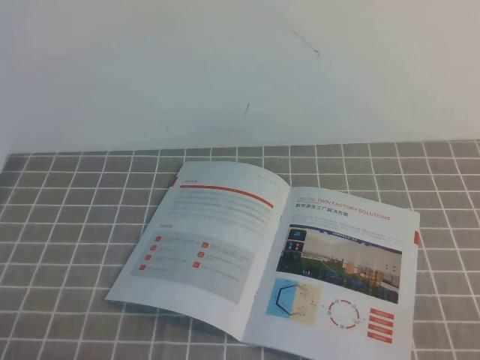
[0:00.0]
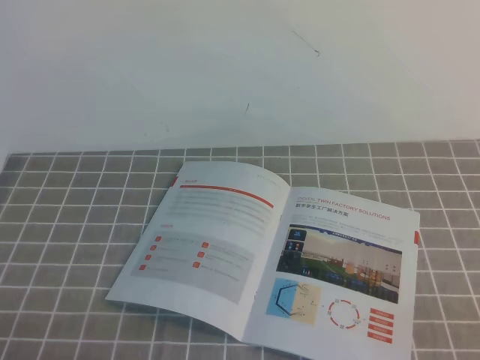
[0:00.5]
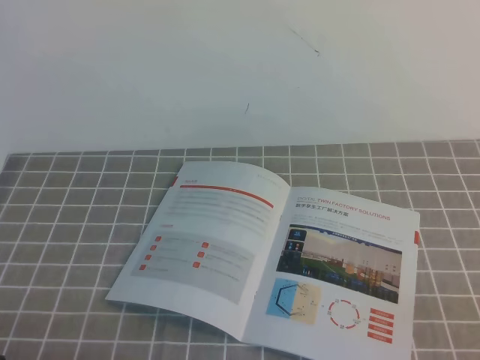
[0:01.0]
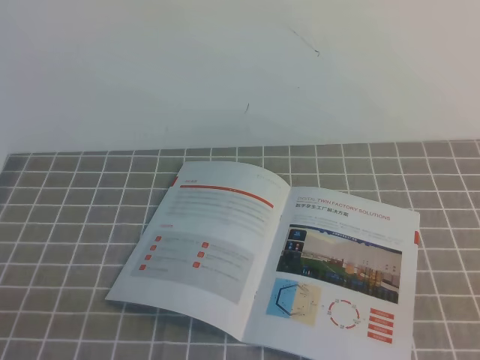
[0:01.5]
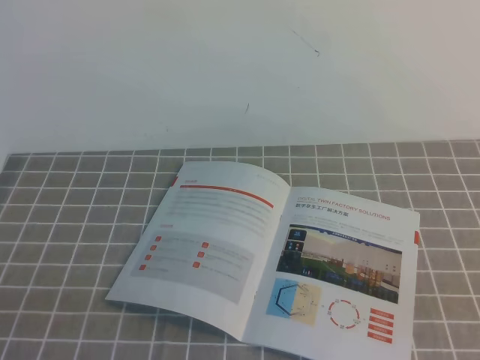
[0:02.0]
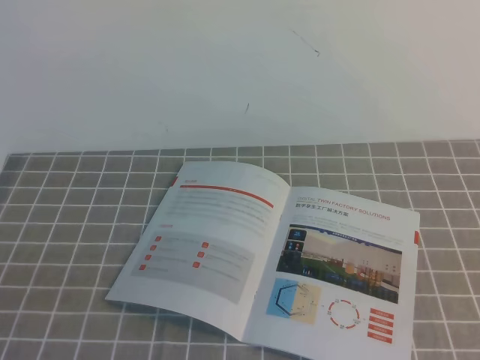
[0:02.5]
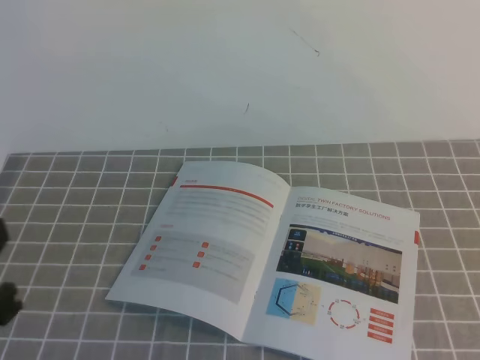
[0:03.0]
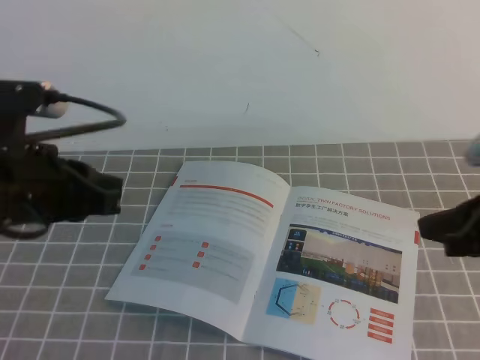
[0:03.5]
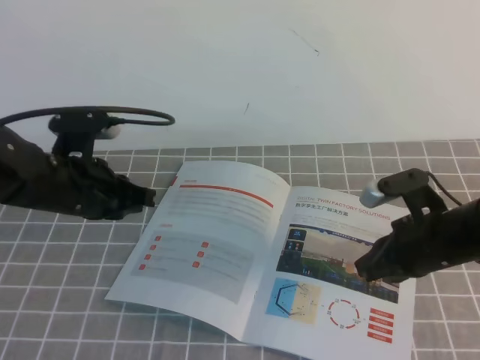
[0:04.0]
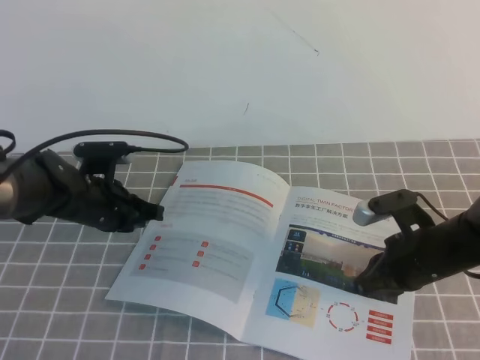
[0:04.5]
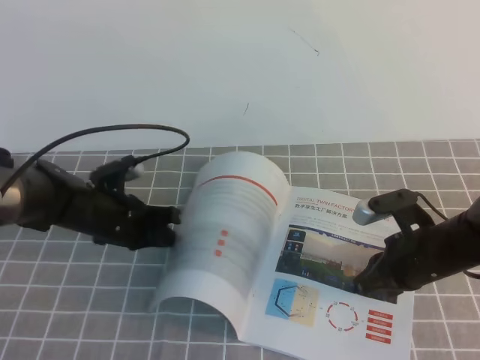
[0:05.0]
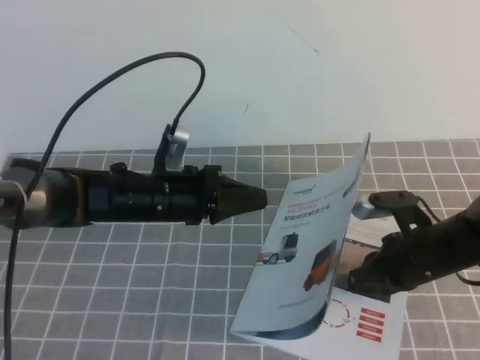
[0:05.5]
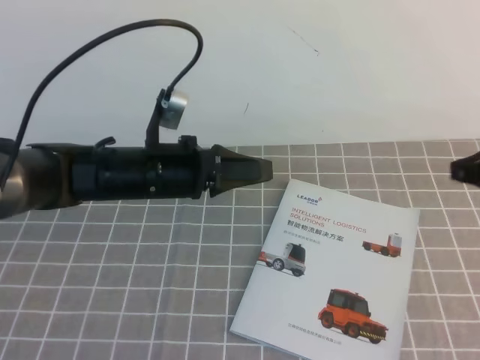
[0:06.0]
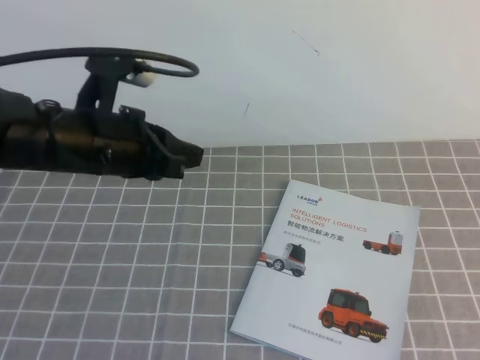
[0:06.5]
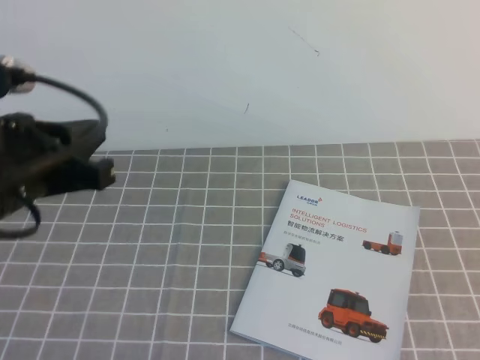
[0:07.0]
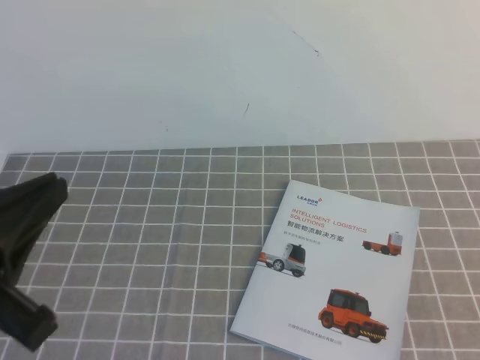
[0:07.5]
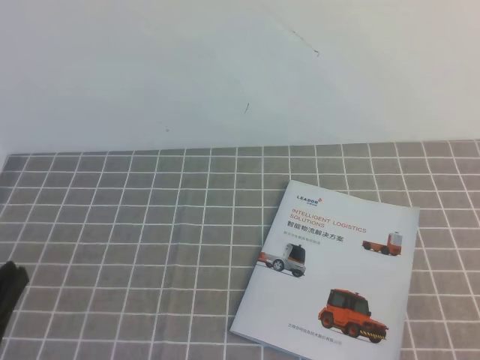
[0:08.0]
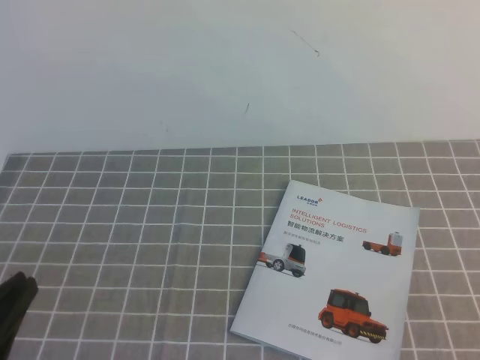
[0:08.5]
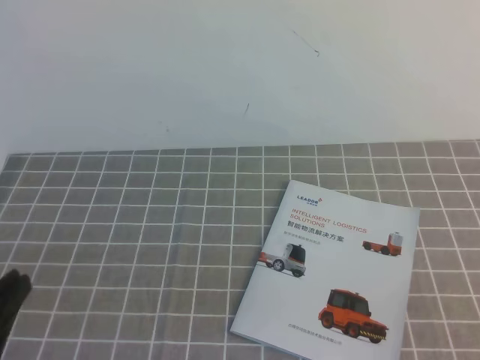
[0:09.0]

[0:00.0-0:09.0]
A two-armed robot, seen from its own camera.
Task of the whole recording: on the grey tablecloth, hold the book with one hand and close it with the other.
0:02.0 to 0:04.5: The right gripper goes about 30 cm forward, to the left and downward; the left gripper is displaced forward by about 35 cm.
0:04.5 to 0:07.0: The left gripper is displaced upward and backward by roughly 25 cm. Meanwhile the right gripper heads backward, upward and to the right, covering roughly 35 cm.
0:07.0 to 0:09.0: The right gripper moves downward, about 10 cm, while the left gripper shifts approximately 20 cm backward.

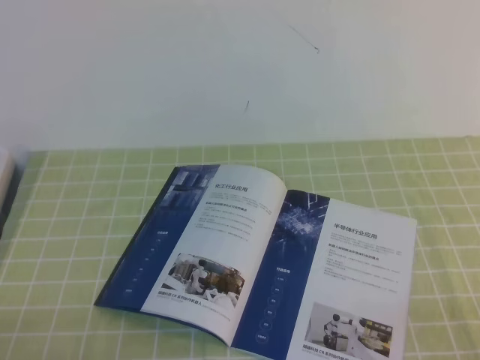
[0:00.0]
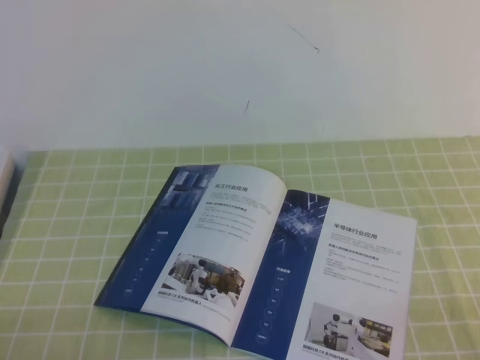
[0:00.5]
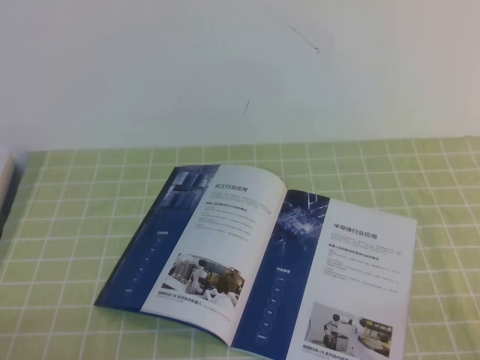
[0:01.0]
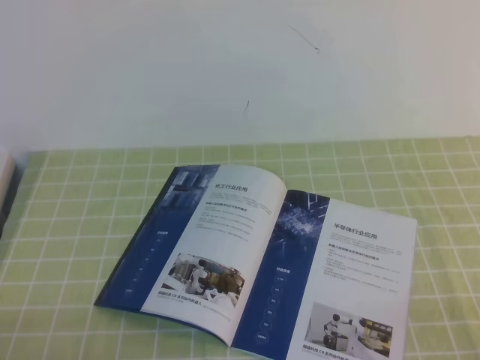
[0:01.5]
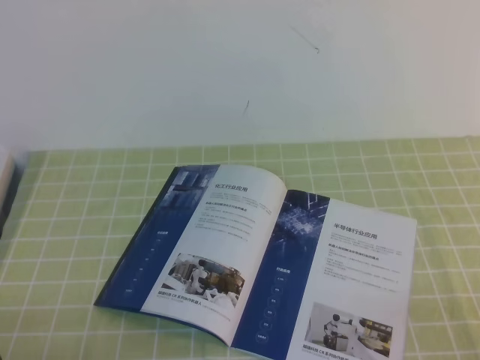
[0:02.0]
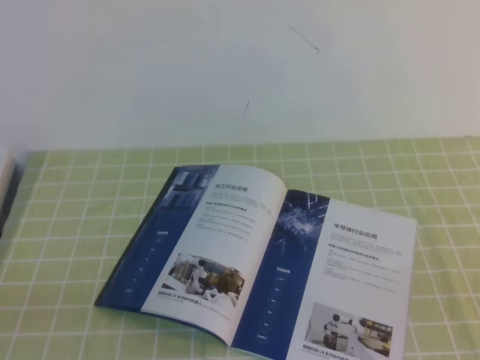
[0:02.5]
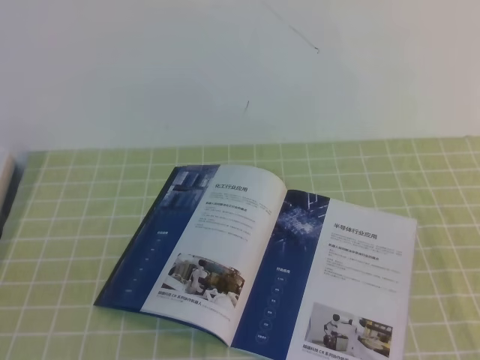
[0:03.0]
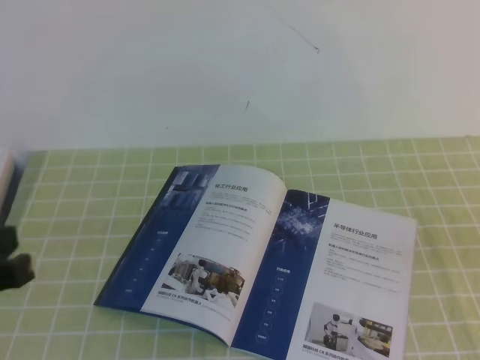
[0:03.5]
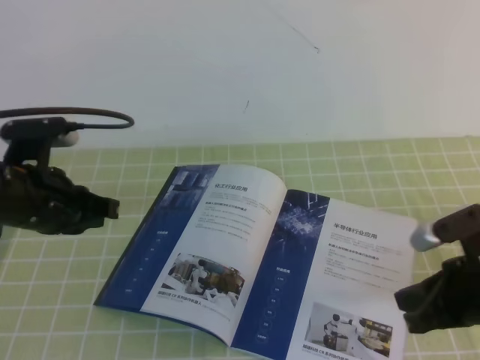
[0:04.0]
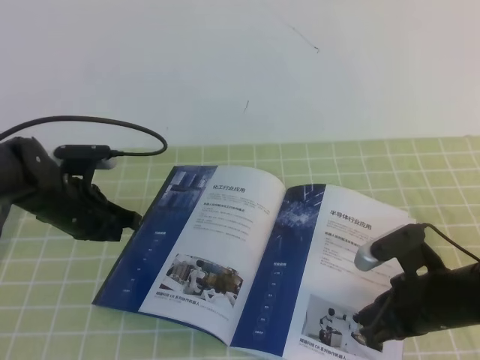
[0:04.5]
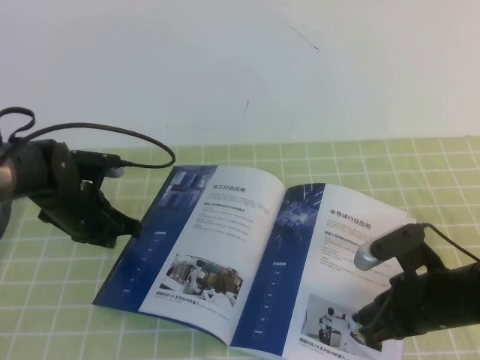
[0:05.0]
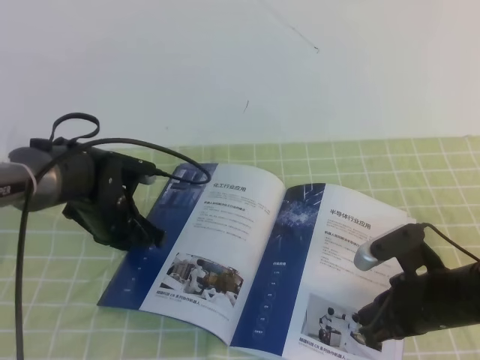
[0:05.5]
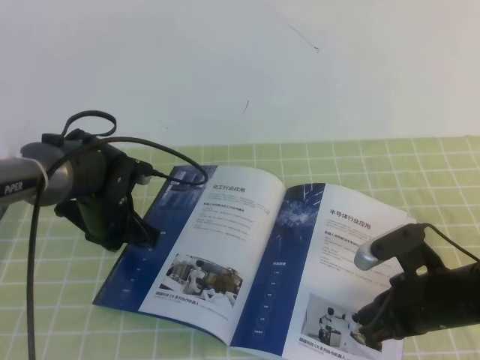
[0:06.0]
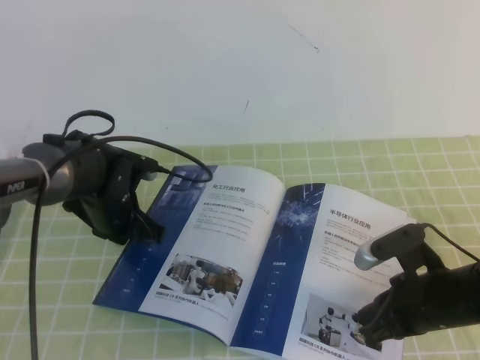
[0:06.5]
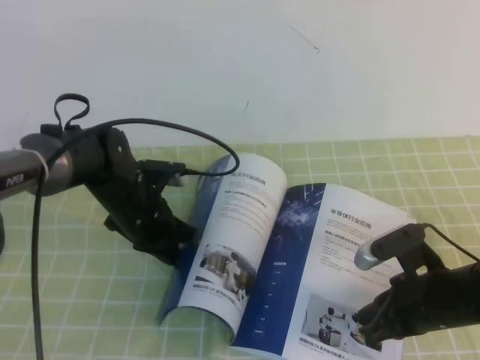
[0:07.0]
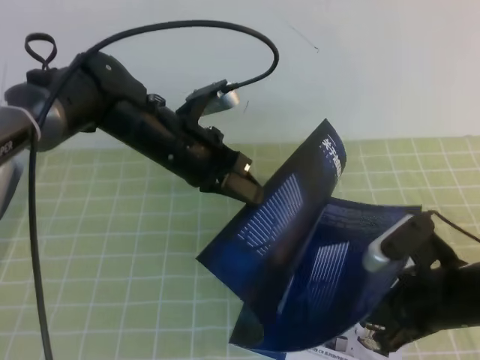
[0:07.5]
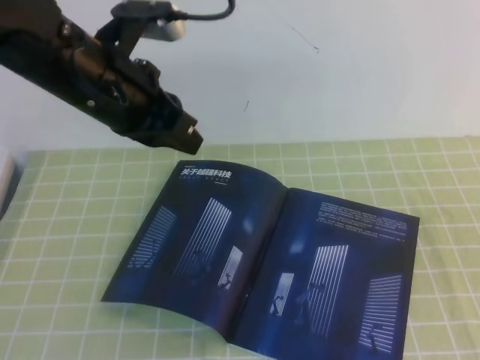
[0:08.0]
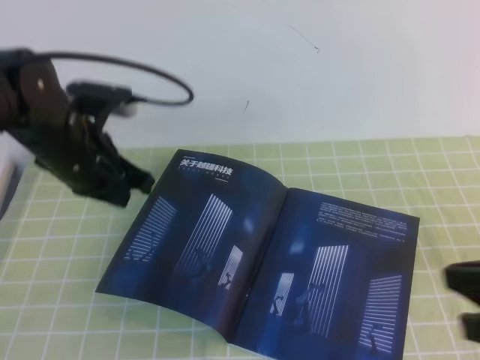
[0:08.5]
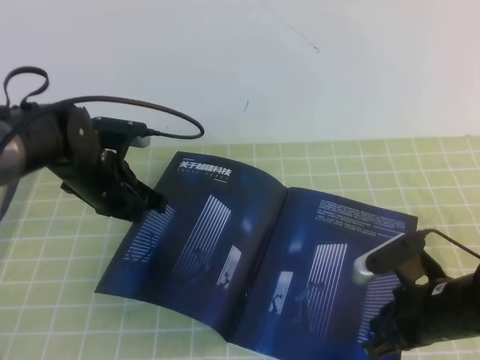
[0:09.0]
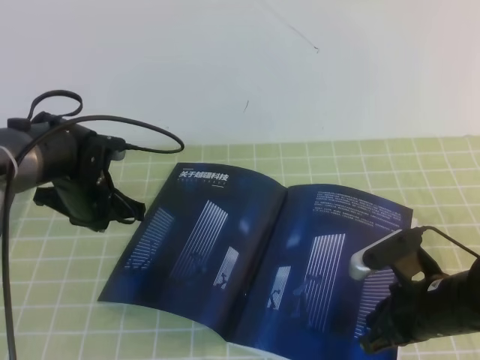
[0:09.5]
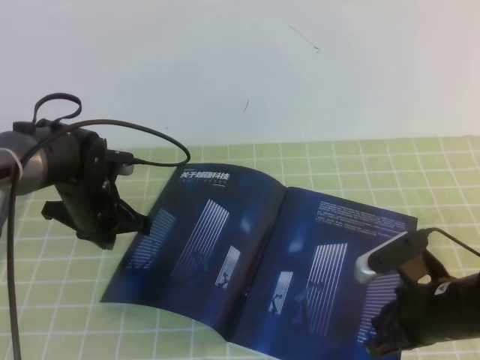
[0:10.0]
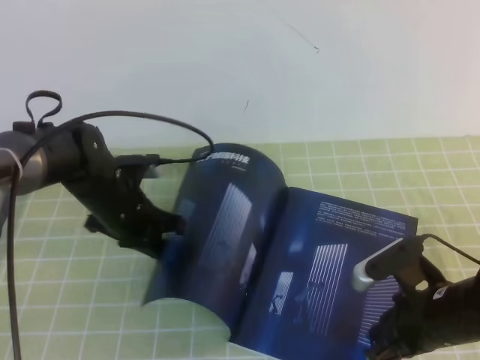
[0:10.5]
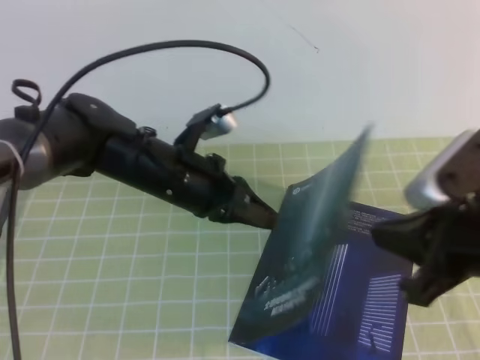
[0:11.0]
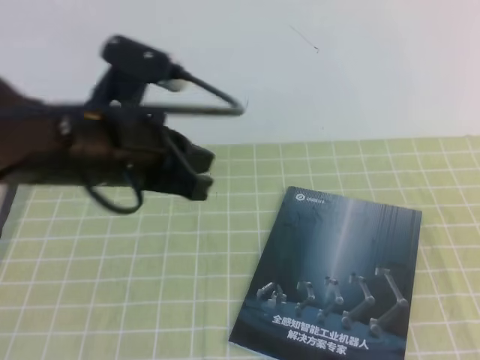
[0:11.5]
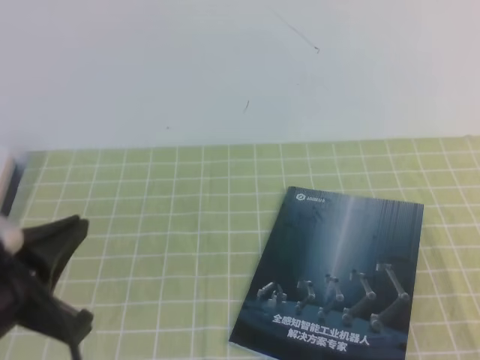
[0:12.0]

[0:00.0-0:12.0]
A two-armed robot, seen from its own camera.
Task of the whole recording: on the green tablecloth, hold the book with one hand and close it with the other.
0:02.0 to 0:04.0: The right gripper moves forward and to the left, approximately 20 cm, while the left gripper moves forward, approximately 25 cm.
0:04.0 to 0:06.0: The left gripper goes about 15 cm downward, forward and to the right. Meanwhile the right gripper goes some 5 cm downward.
0:06.0 to 0:08.0: The right gripper travels upward, backward and to the right by about 20 cm. The left gripper moves upward, some 20 cm.
0:08.0 to 0:10.0: The left gripper shifts about 20 cm downward; the right gripper shifts about 20 cm downward, forward and to the left.
0:10.0 to 0:12.0: The left gripper travels backward and upward by about 30 cm, while the right gripper travels backward, upward and to the right by approximately 30 cm.

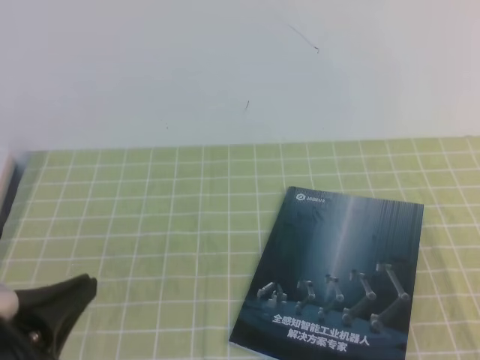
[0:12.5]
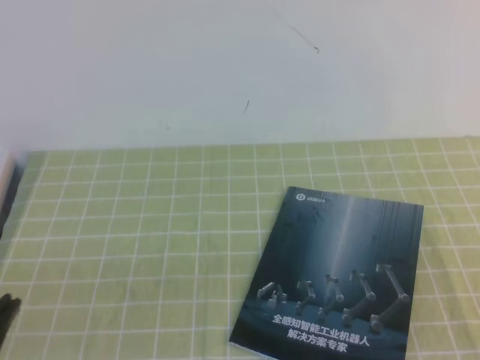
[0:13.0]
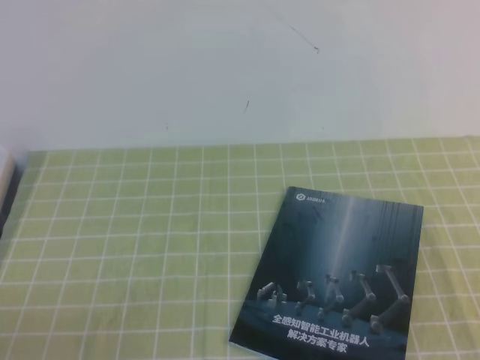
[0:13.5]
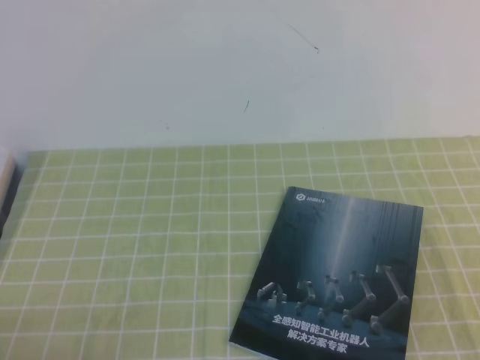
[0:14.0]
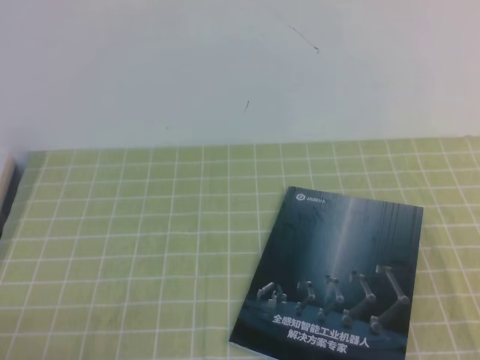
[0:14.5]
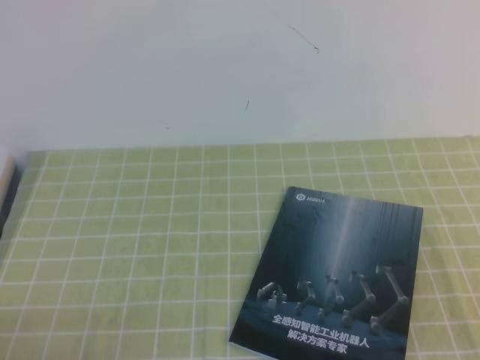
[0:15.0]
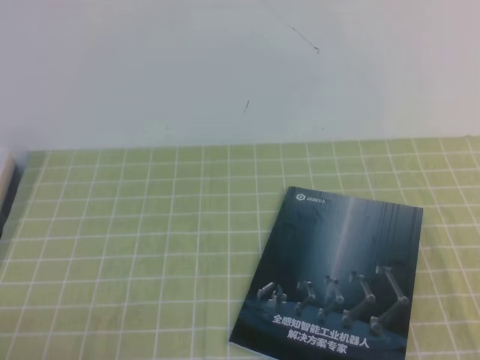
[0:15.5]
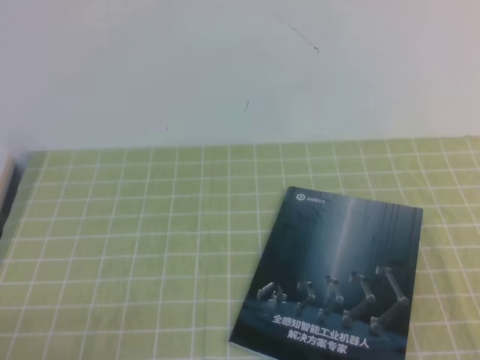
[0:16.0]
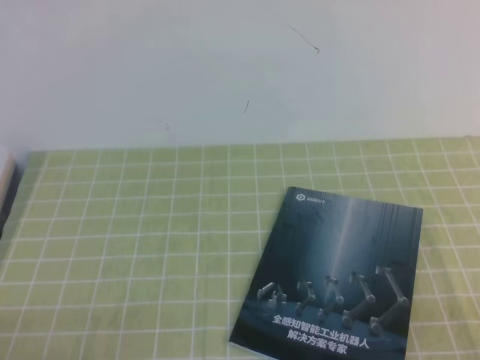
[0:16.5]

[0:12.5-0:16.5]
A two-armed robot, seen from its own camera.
Task of the whole recording: on the green tablecloth, hold the book with one hand and close it with the other.
Step, 0:12.5 to 0:16.5: Close the open book.
0:12.5 to 0:14.5: The left gripper travels downward, to the left and backward by roughly 10 cm.
